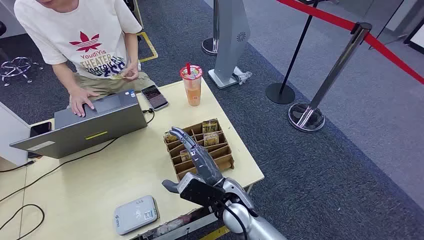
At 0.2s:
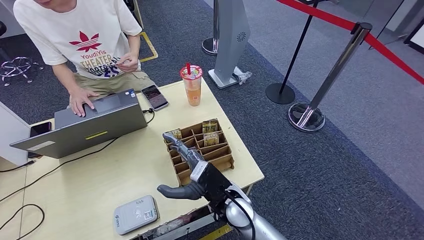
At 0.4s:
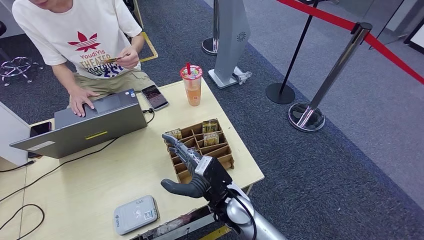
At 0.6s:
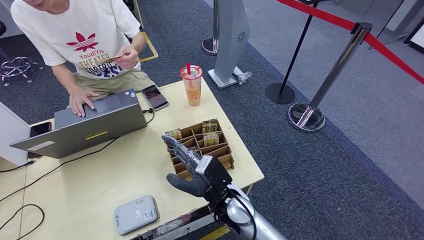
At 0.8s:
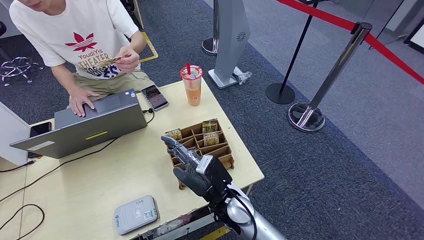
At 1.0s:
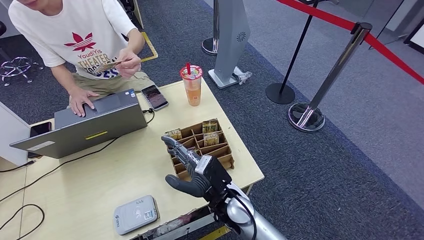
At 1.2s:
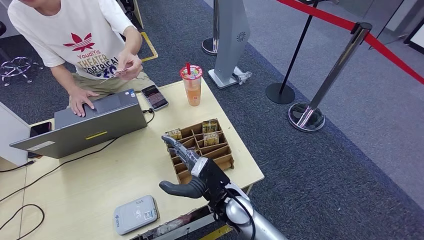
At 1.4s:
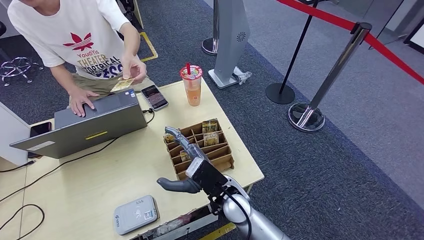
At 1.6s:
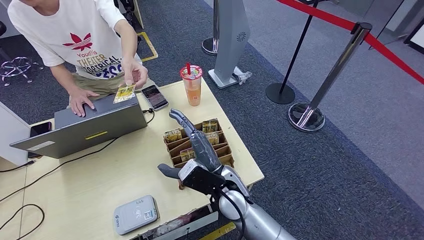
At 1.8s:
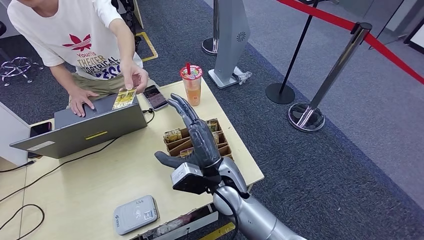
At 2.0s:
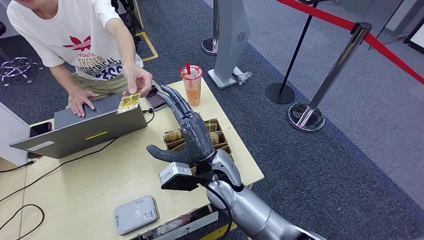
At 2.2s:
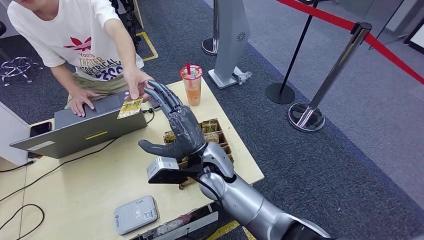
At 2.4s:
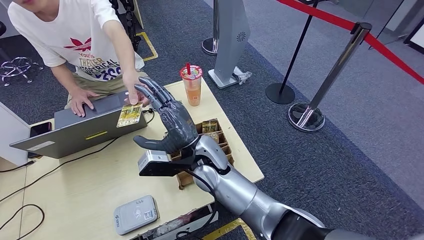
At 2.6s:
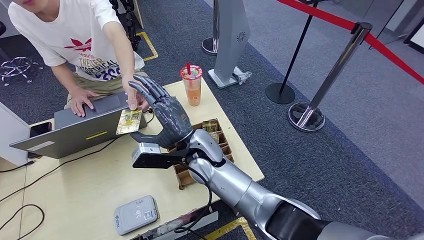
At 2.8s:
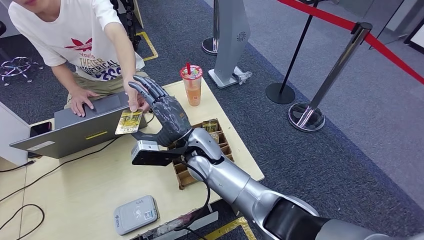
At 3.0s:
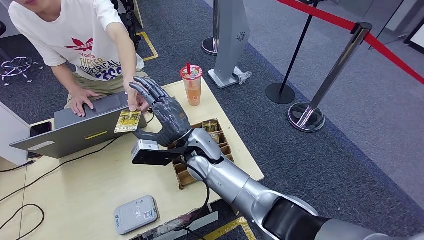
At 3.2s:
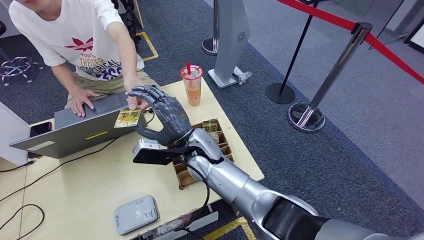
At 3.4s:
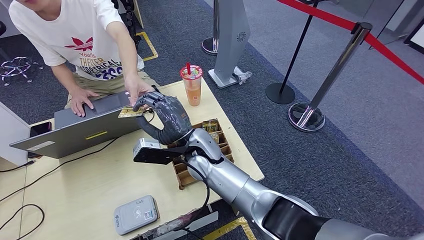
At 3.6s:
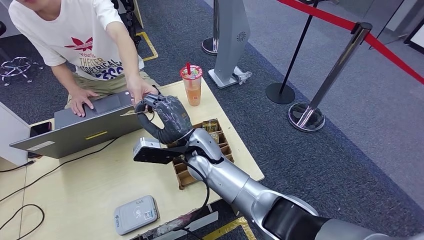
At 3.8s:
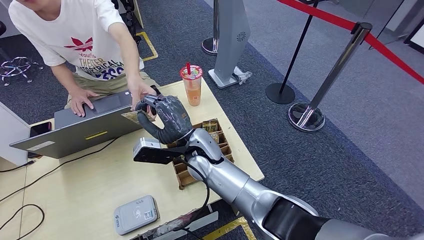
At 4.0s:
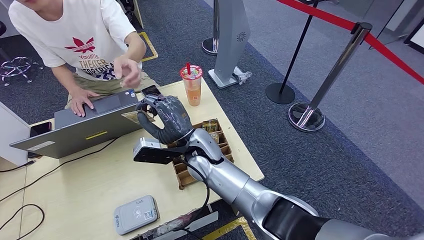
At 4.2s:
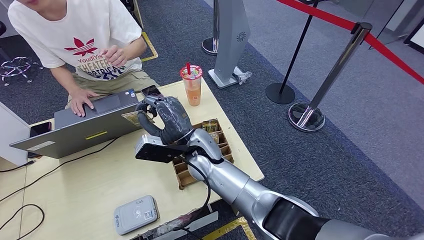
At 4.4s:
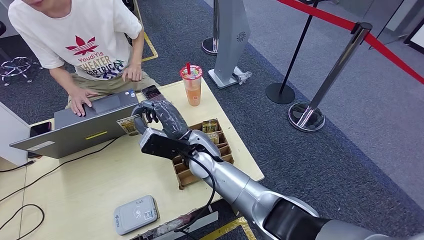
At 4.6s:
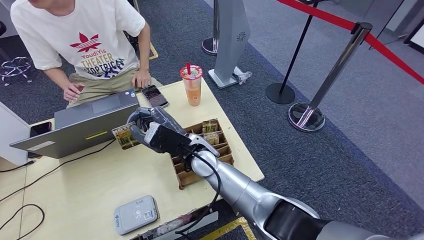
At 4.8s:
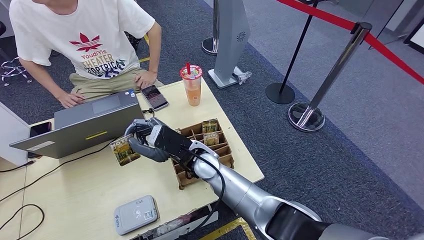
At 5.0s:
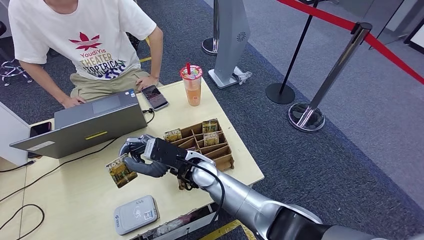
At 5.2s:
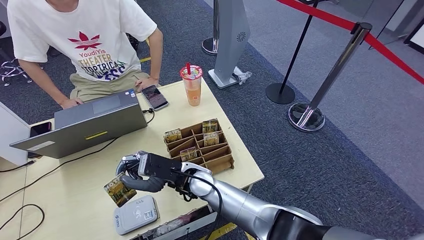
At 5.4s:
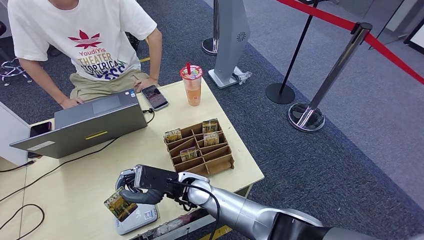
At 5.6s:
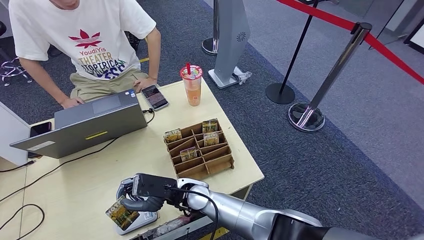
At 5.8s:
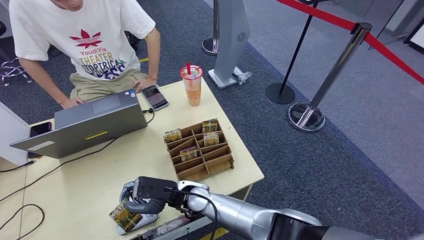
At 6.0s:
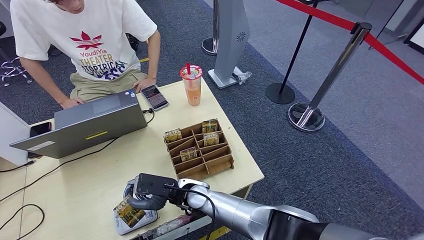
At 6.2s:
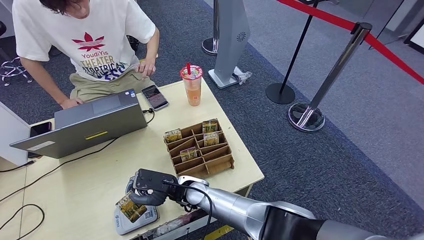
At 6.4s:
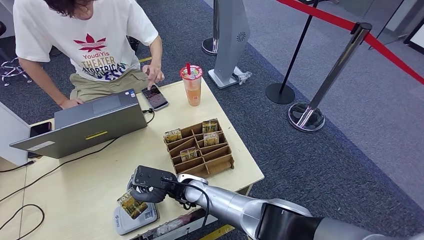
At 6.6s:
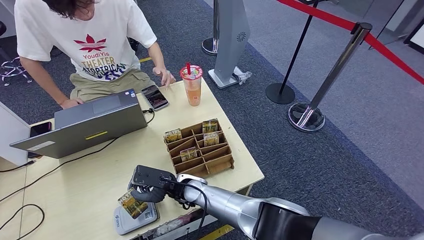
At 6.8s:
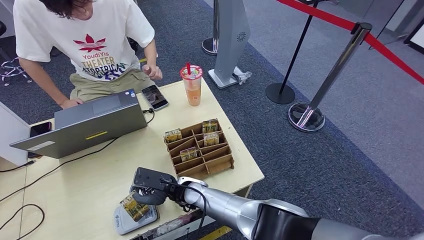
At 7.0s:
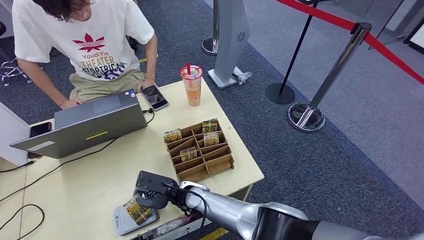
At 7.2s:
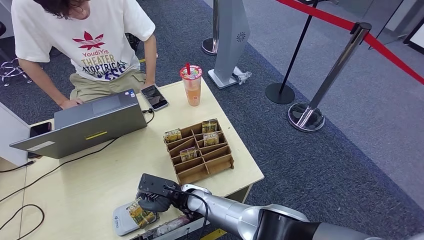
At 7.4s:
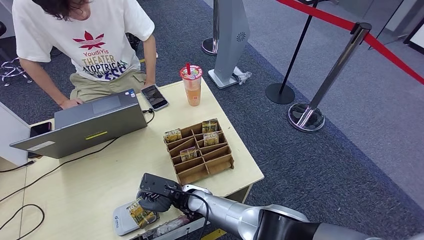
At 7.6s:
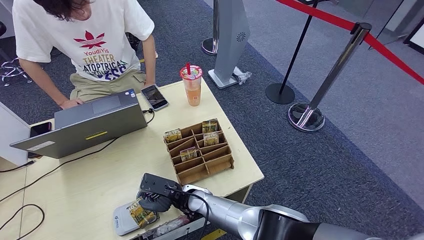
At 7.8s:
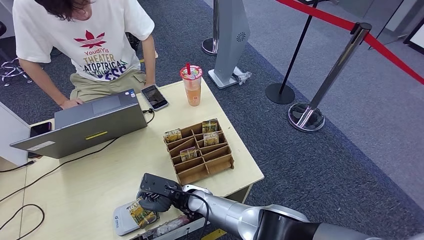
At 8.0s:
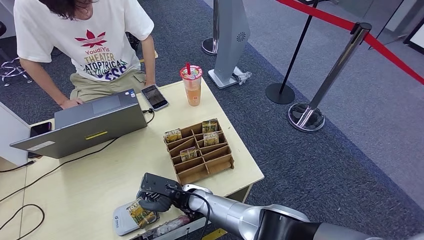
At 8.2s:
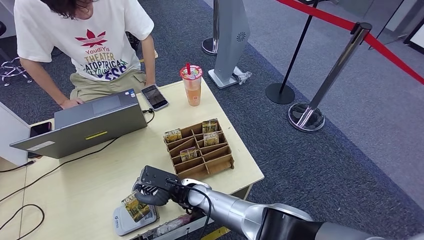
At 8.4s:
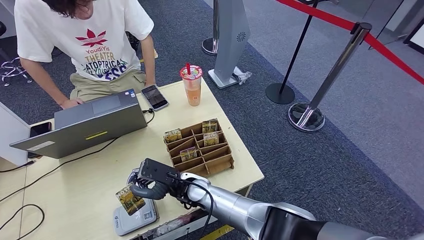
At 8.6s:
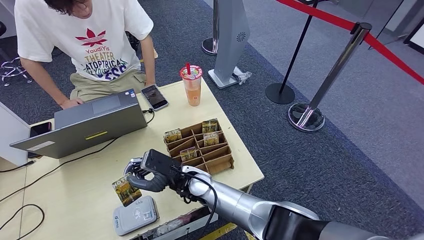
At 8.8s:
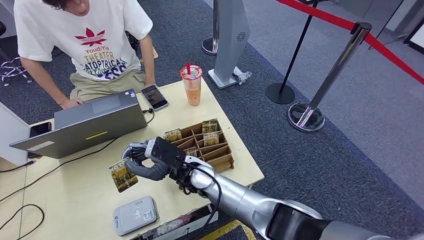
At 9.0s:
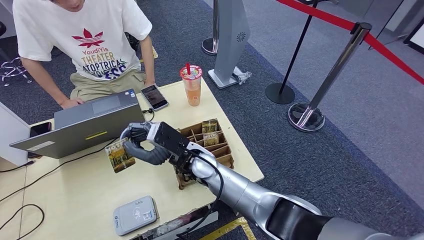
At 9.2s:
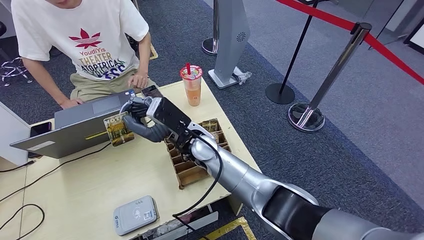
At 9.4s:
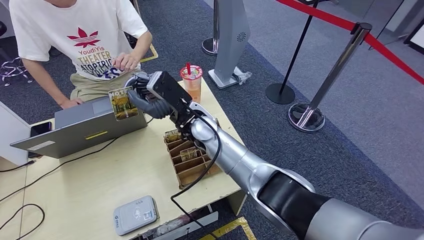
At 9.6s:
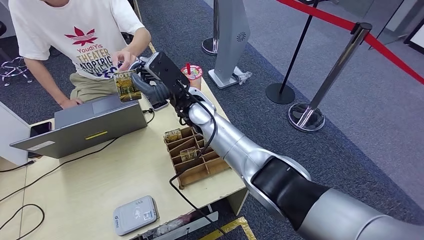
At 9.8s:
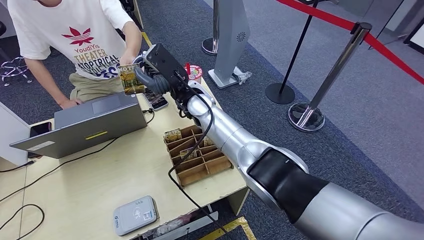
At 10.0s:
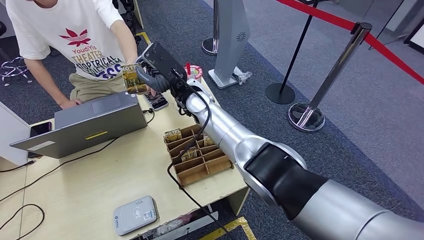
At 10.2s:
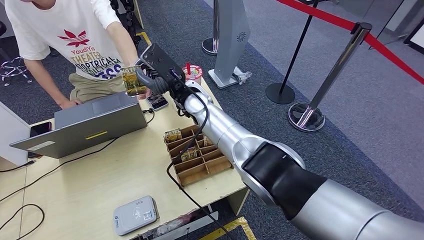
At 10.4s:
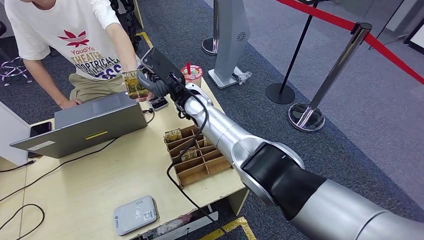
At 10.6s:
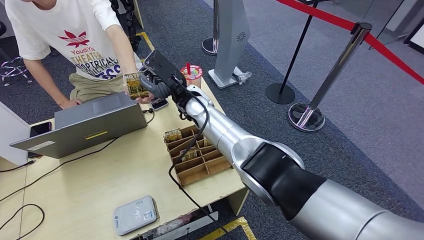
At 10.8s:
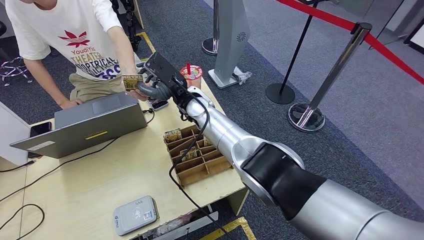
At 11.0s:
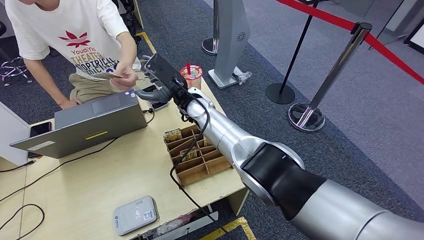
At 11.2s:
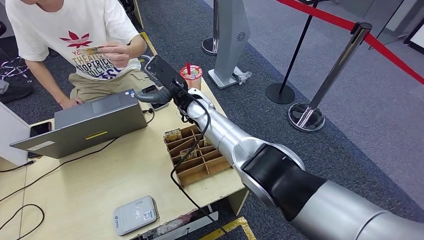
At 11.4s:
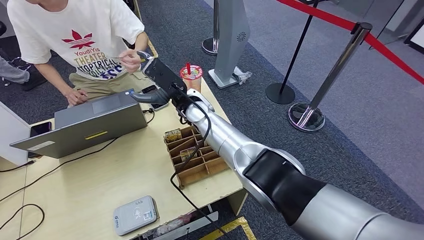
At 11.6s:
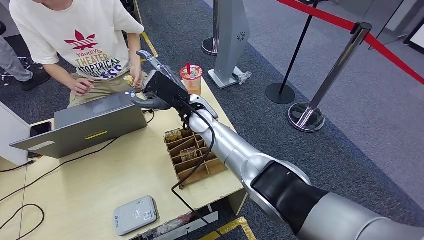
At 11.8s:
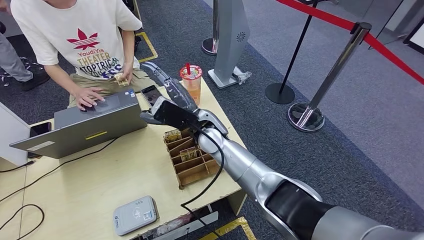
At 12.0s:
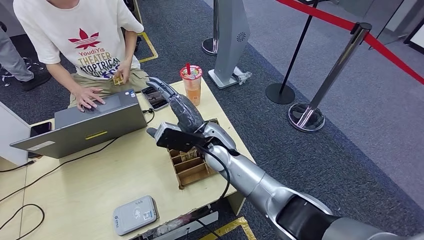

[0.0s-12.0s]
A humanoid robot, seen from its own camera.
Step, 0.0s to 4.4s: Take the ID card from the person's hand.
Step, 4.6s to 8.6s: Place the ID card on the card reader.
Step, 8.8s to 11.8s: Hand the ID card to the person.
1.6s to 3.0s: The right hand travels forward by approximately 10 cm.
3.0s to 4.4s: The hands stay close to where they were, moving slightly.
4.4s to 6.0s: The right hand goes some 10 cm downward and backward.
6.0s to 7.6s: The hands make only small movements.
7.6s to 9.0s: The right hand moves upward, approximately 15 cm.

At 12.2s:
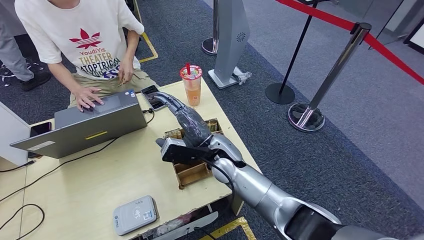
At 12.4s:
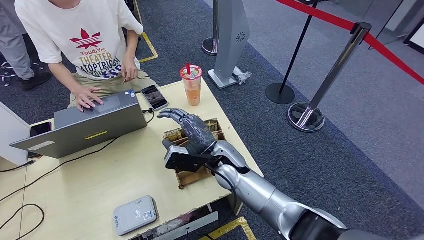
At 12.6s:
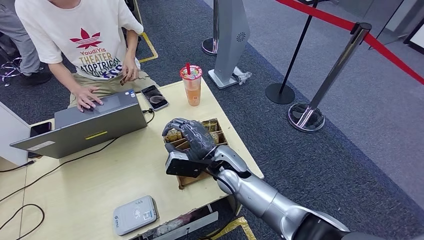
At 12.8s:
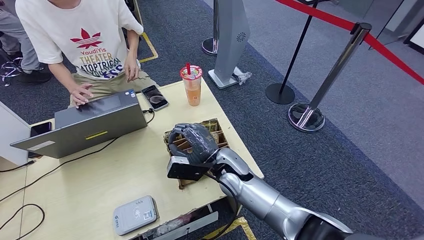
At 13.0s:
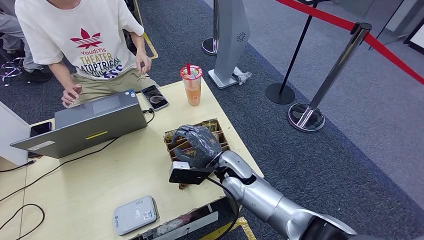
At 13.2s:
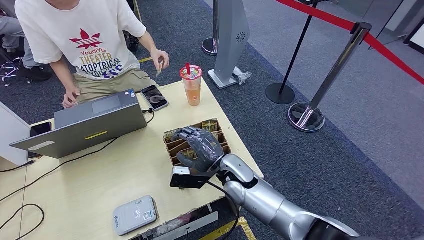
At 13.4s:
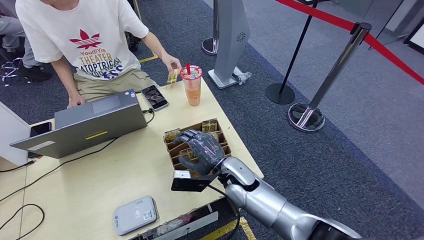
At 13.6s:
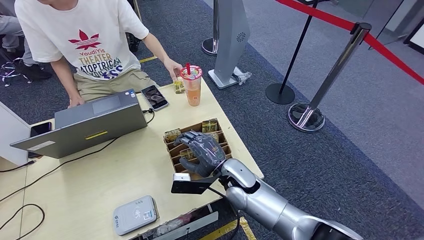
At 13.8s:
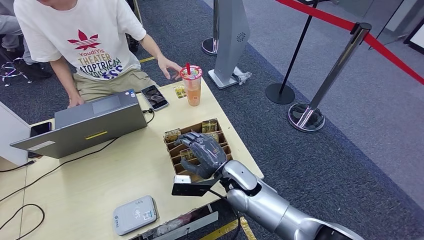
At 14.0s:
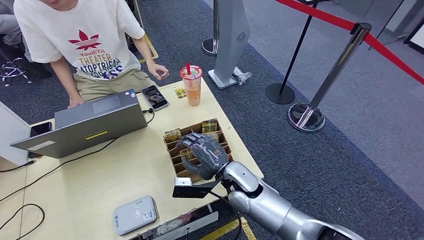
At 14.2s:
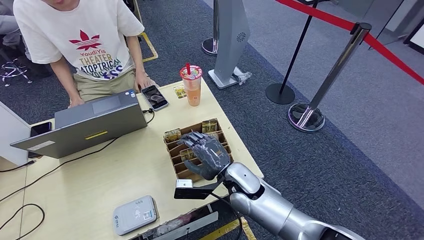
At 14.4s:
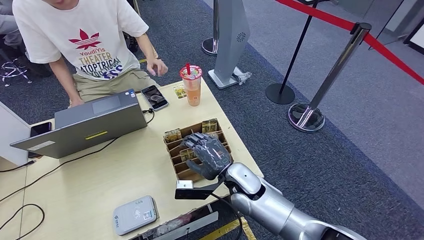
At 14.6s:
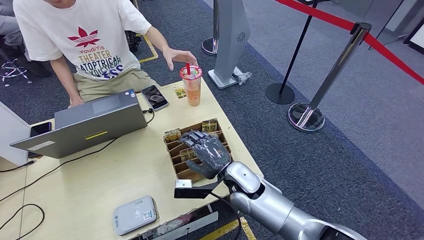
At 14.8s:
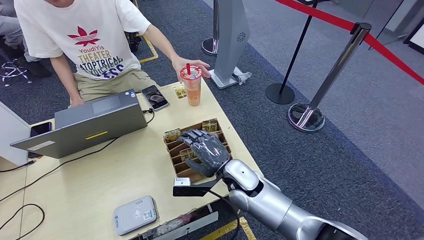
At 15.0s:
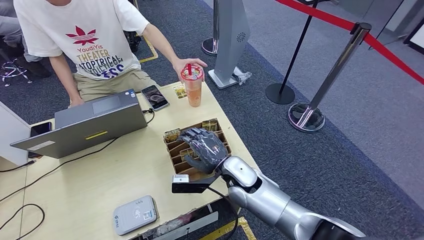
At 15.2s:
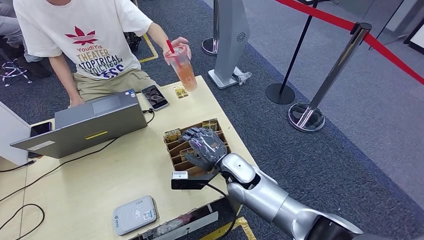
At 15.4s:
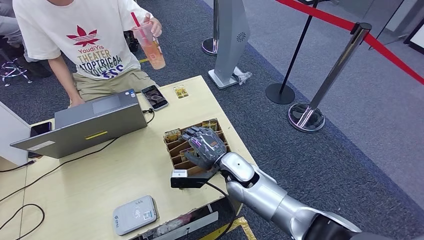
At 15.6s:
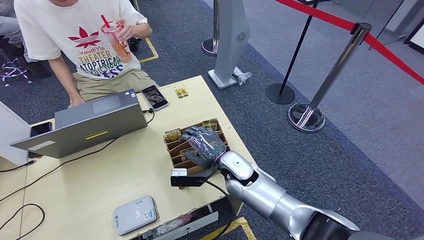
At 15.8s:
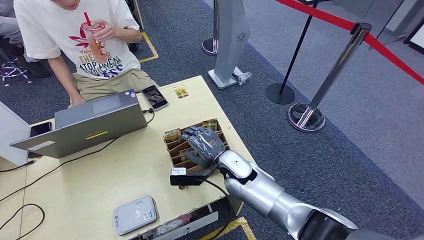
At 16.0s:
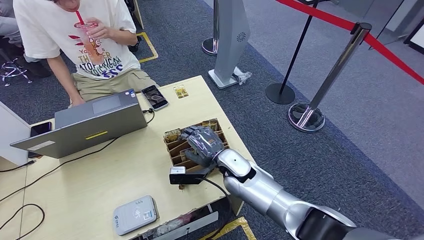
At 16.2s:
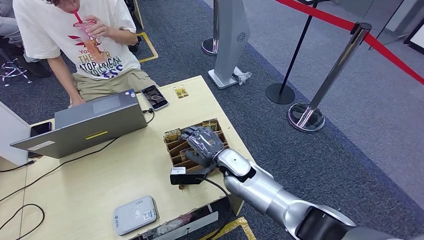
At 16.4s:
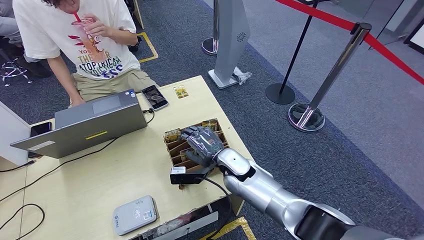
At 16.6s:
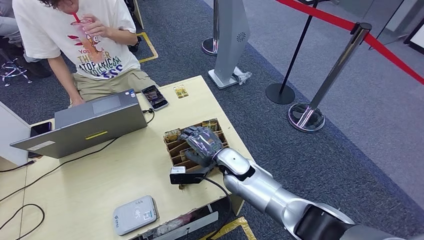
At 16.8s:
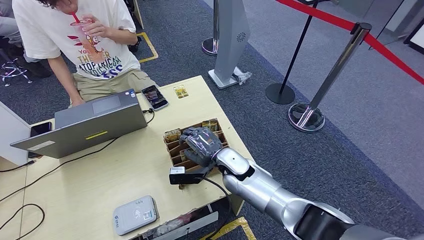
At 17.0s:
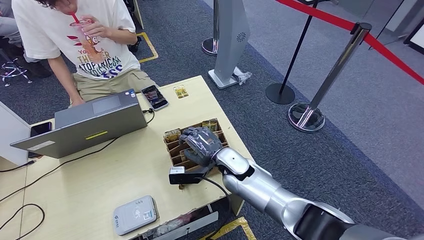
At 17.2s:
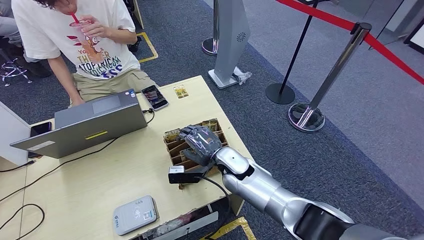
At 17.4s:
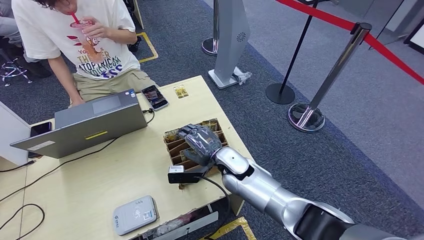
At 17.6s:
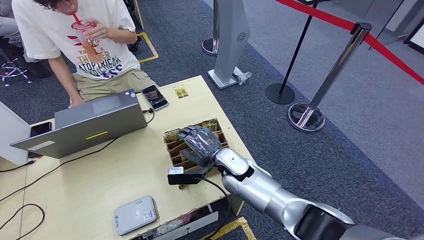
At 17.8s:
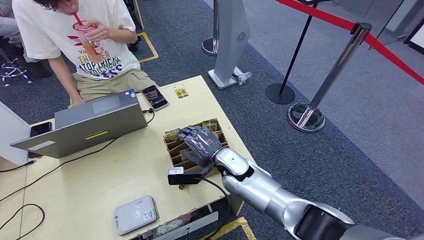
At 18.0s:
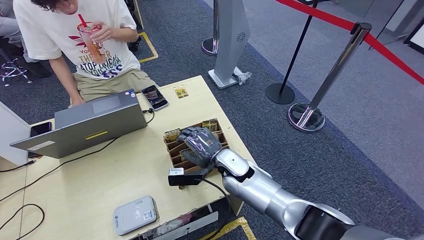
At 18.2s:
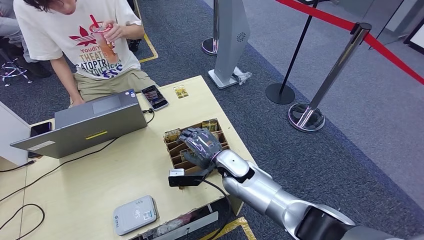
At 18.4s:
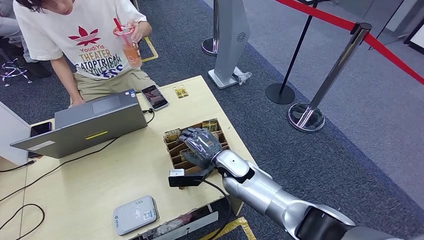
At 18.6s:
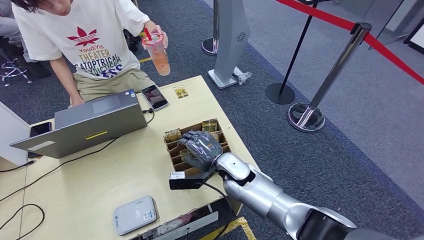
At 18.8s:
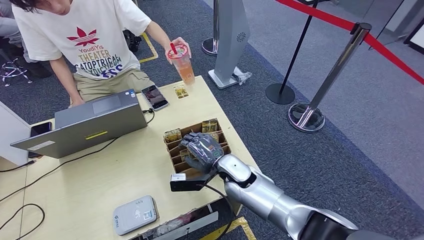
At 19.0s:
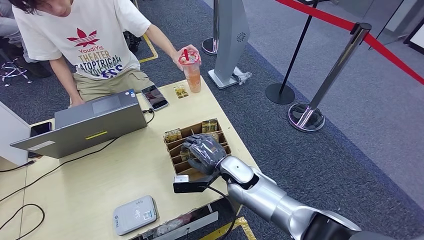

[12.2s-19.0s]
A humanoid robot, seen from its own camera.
12.2s to 13.6s: The right hand travels downward and backward by approximately 10 cm.
13.6s to 16.2s: The hands stay close to where they were, moving slightly.
16.2s to 17.6s: The two hands keep their place.
17.6s to 19.0s: There are only small adjustments of the hands.
